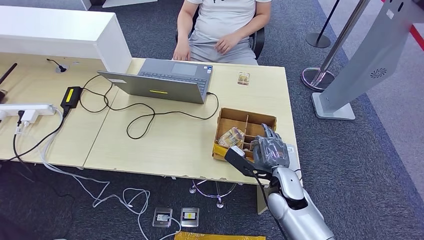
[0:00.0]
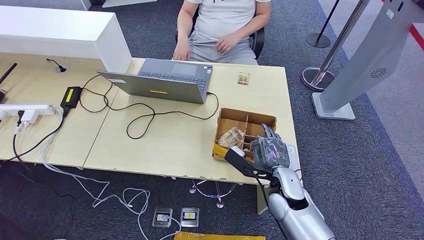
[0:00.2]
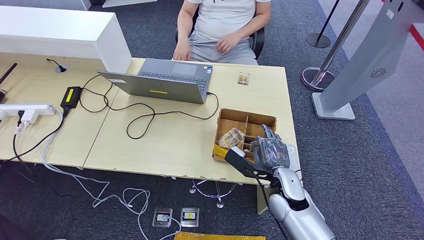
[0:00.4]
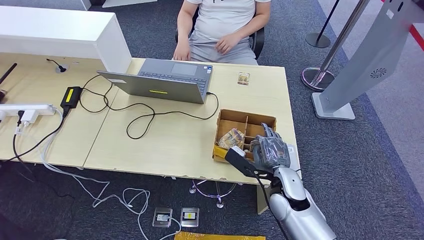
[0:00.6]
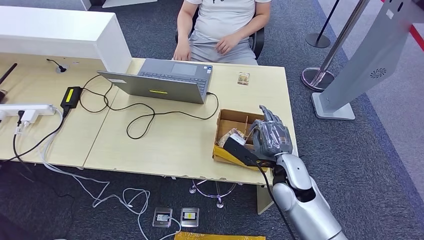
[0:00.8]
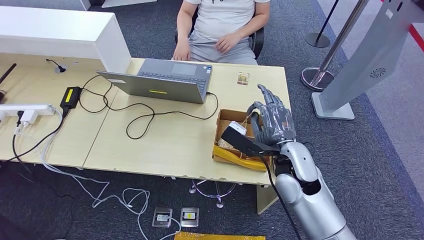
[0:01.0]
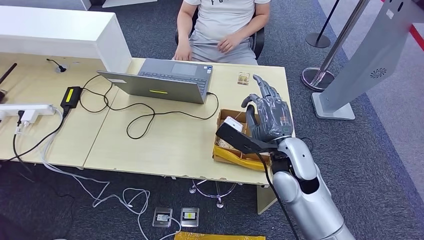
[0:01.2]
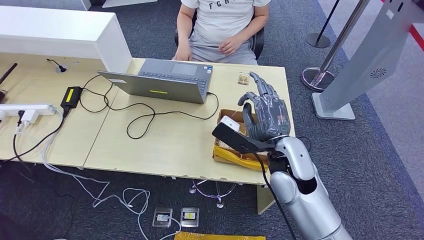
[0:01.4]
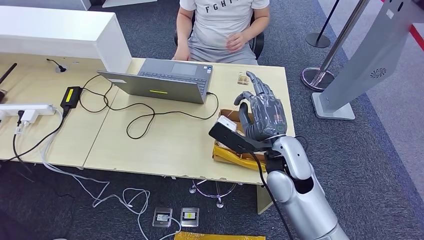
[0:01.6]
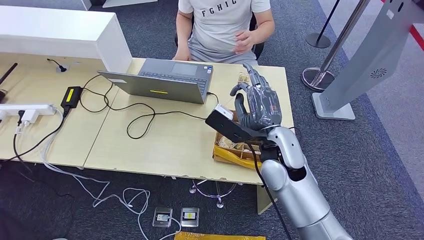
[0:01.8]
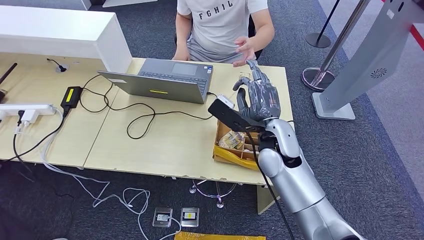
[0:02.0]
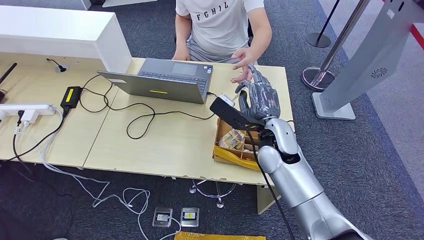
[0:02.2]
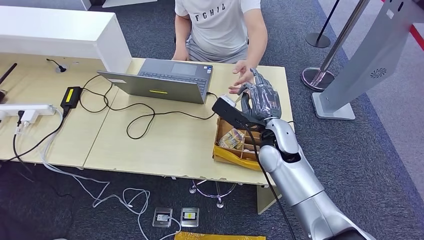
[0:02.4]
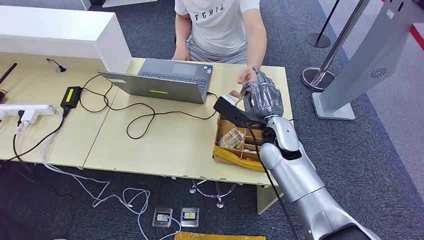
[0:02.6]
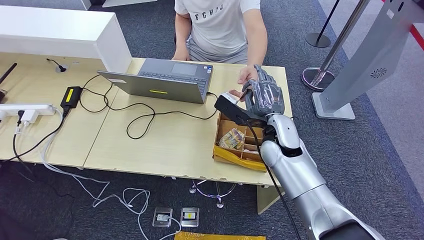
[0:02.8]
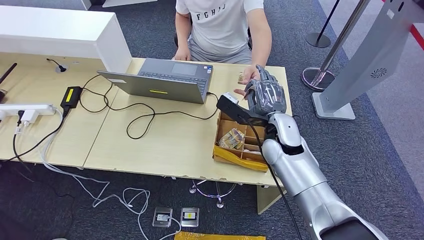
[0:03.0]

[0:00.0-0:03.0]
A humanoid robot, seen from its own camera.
Step, 0:01.2 to 0:03.0: Hand the room key to the person.
0:00.0 to 0:01.6: The right hand heads upward, covering about 15 cm.
0:01.6 to 0:03.0: The right hand travels forward by some 10 cm.
